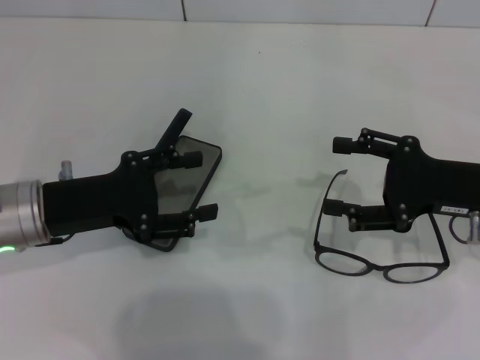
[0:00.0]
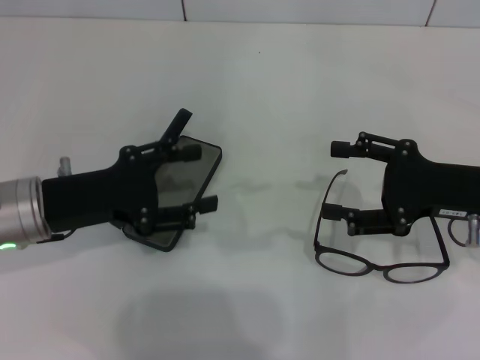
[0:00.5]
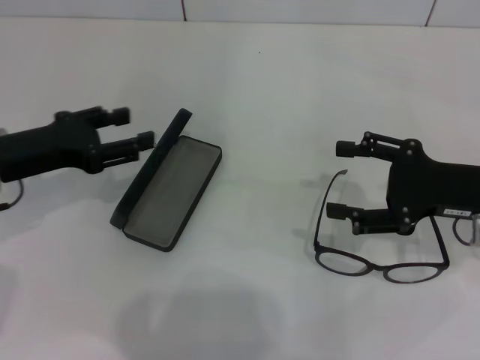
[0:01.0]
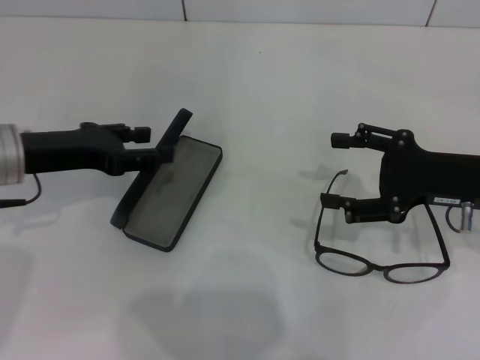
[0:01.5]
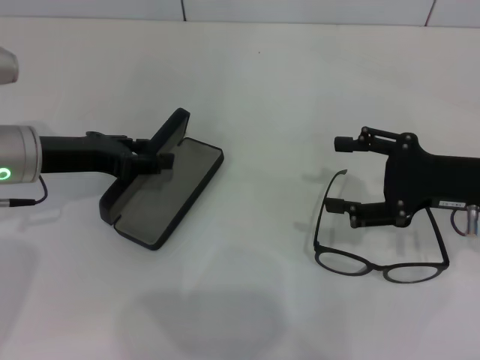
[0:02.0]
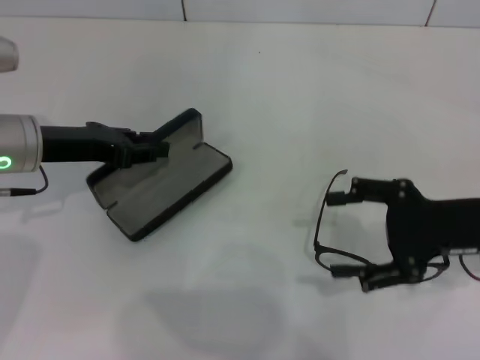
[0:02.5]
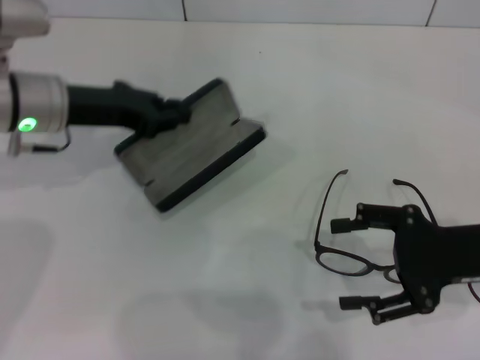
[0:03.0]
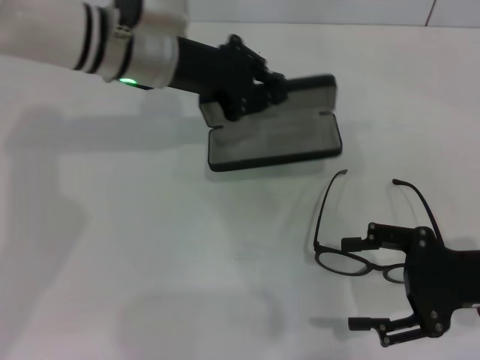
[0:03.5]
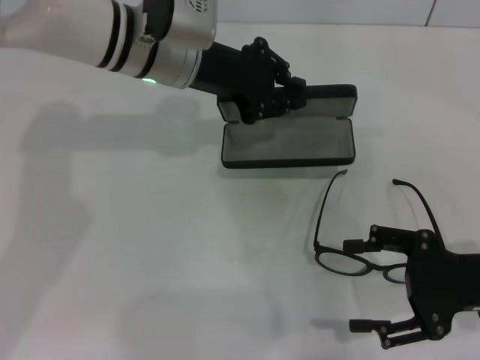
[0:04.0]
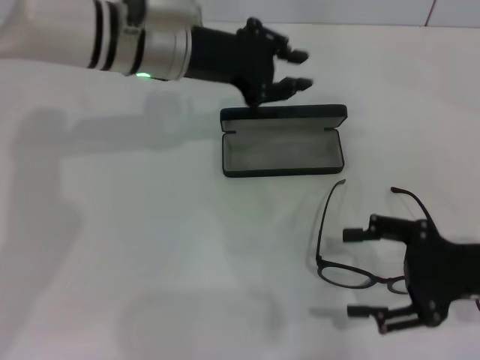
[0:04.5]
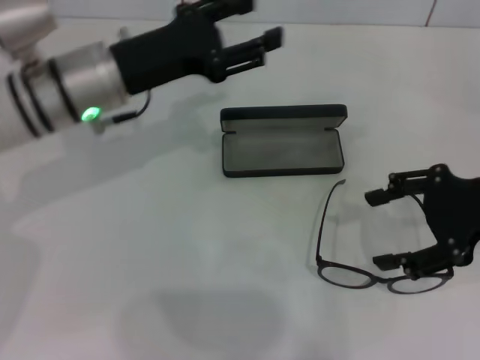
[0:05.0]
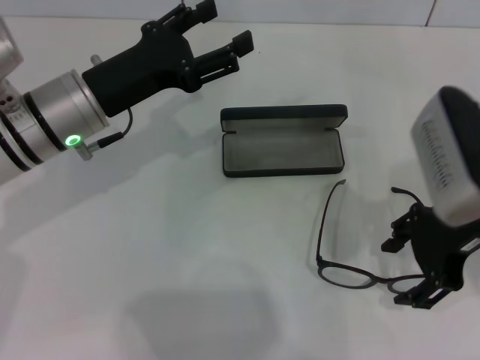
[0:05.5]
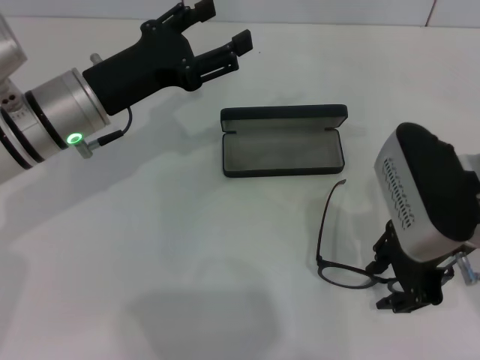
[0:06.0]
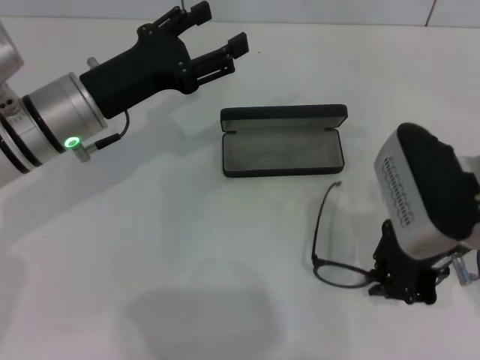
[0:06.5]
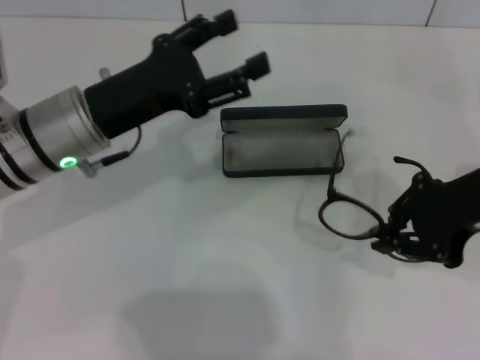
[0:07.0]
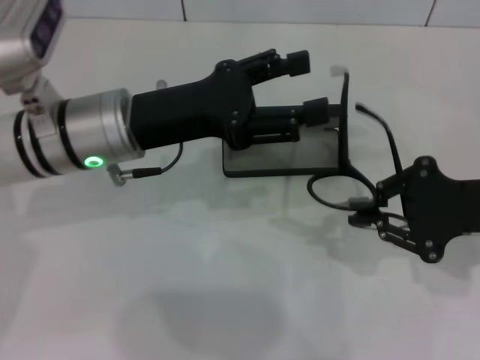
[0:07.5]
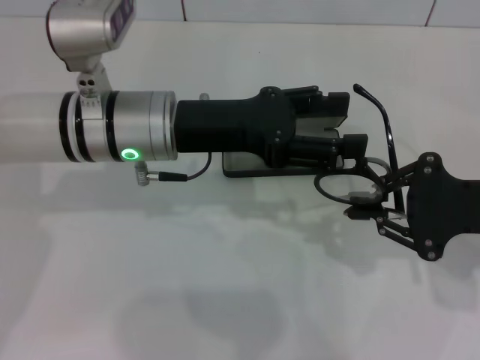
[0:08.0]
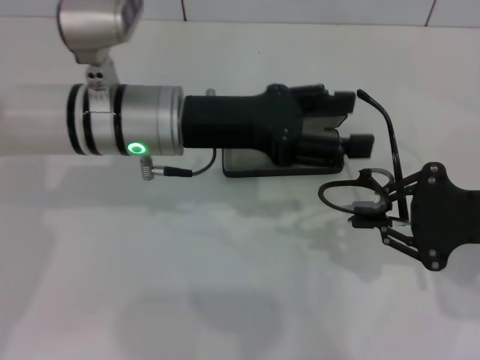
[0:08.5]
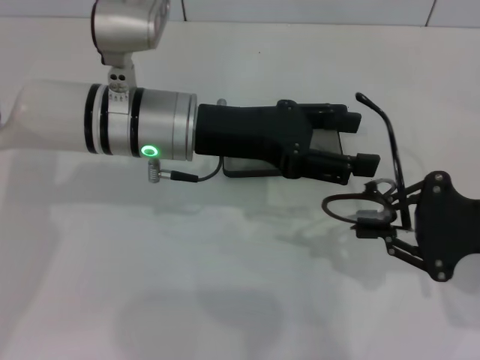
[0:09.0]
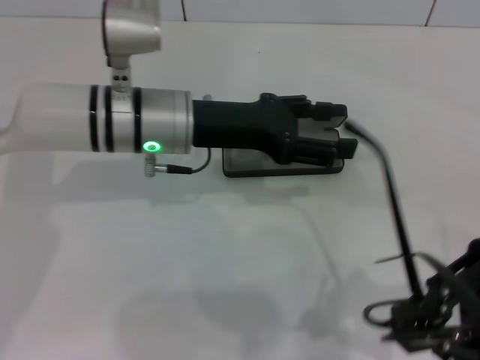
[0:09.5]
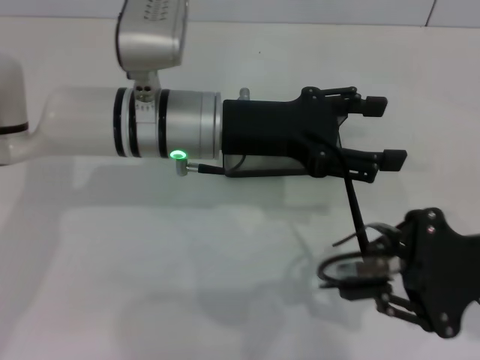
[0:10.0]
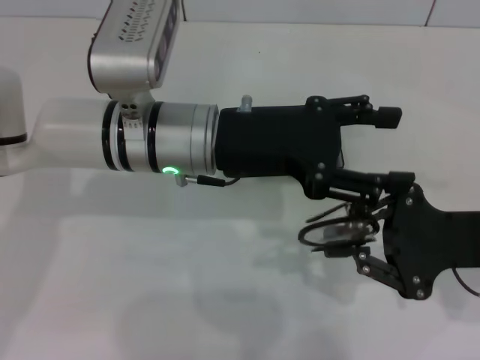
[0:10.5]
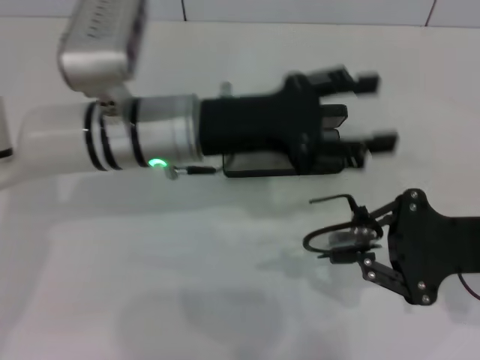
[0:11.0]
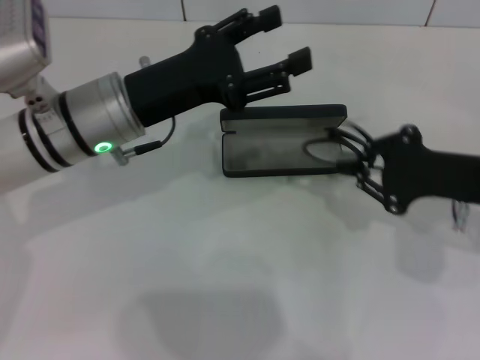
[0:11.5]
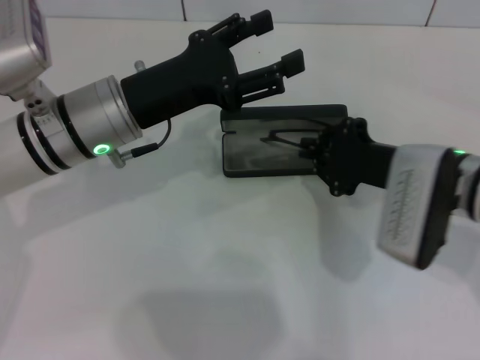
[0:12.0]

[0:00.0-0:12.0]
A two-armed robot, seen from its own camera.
Step, 0:00.0 to 0:02.5: Grab the glasses case with your left hand.
Step, 0:03.0 to 0:04.0: Place the glasses case in the center of the table with your left hand.
Step, 0:04.5 to 0:06.0: Grab the eyeglass frame with your right hand.
Step, 0:06.5 to 0:10.5: Lift the glasses with your right hand.
0:00.0 to 0:02.0: The left gripper is displaced forward by roughly 5 cm.
0:02.0 to 0:04.0: The left gripper travels to the right, forward and upward by some 20 cm, and closes up. Meanwhile the right gripper moves backward, about 5 cm.
0:04.0 to 0:06.0: The left gripper is displaced to the left and backward by roughly 10 cm, and opens its fingers; the right gripper shifts approximately 15 cm to the left, upward and forward.
0:06.0 to 0:08.0: The two grippers go roughly 10 cm to the right. The right gripper closes its fingers.
0:10.0 to 0:12.0: The left gripper is displaced to the left by roughly 5 cm, while the right gripper shifts roughly 10 cm to the left and forward.

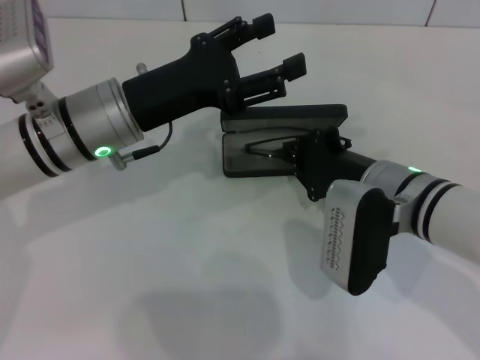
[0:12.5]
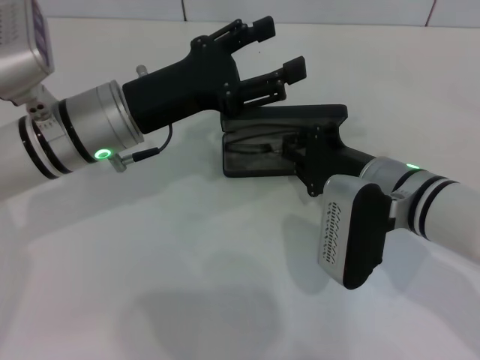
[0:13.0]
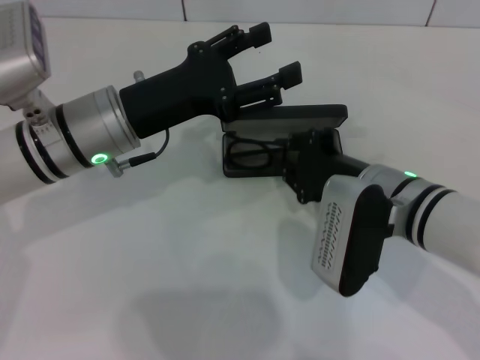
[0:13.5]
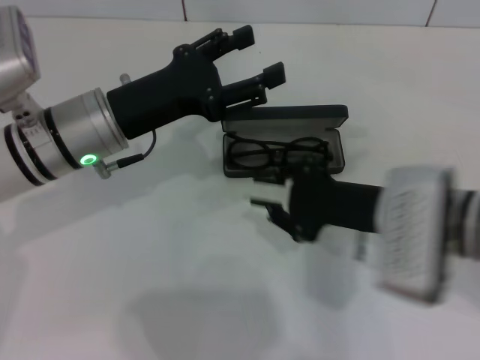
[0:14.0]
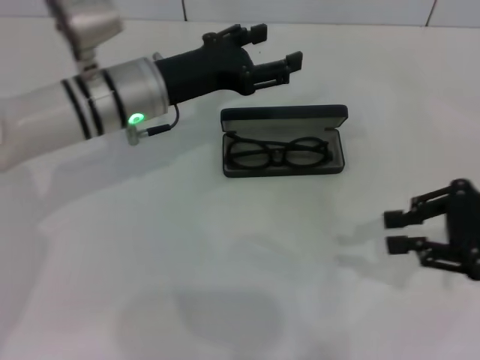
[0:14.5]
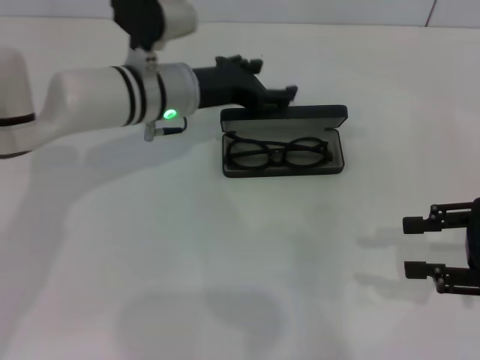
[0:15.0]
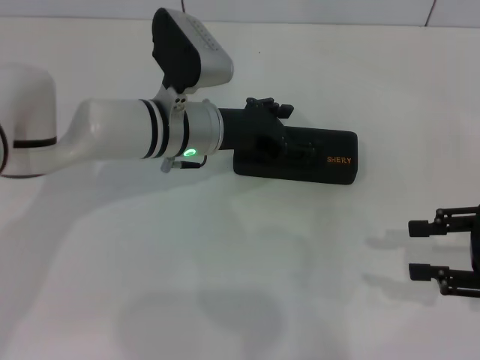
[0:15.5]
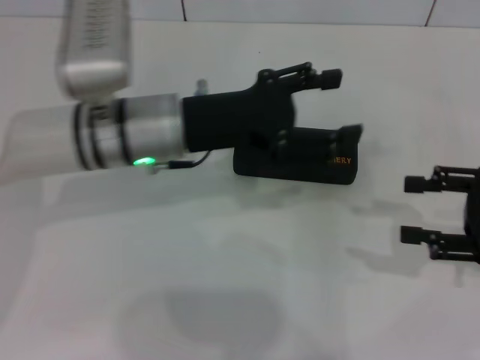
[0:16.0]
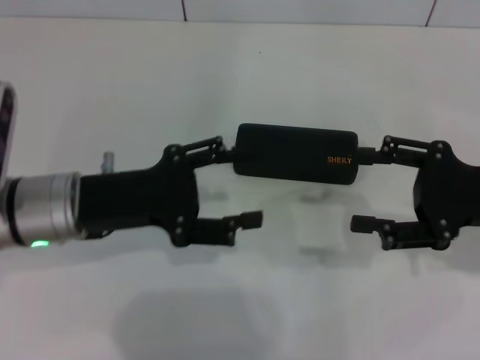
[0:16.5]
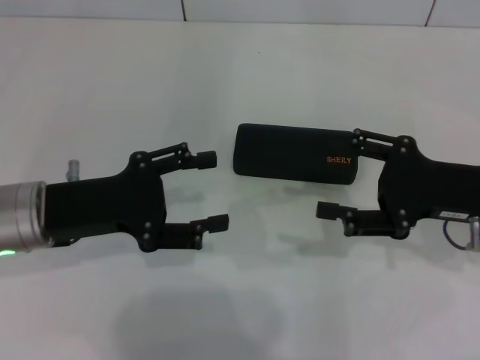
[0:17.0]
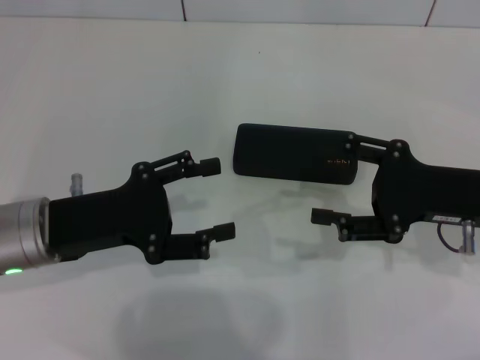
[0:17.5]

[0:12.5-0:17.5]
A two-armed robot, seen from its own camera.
Step, 0:14.0 to 0:15.5: Close the glasses case with your left hand.
0:12.5 to 0:15.0: The left gripper heads forward, covering roughly 10 cm. The right gripper moves to the right, roughly 20 cm, and opens up.
0:15.0 to 0:17.5: The right gripper shifts about 10 cm to the left, and opens, while the left gripper heads backward and to the left, covering about 20 cm.
